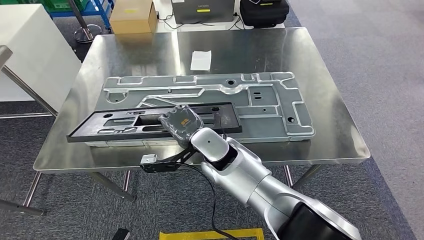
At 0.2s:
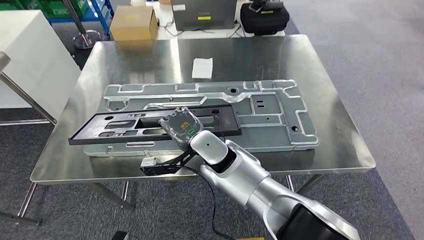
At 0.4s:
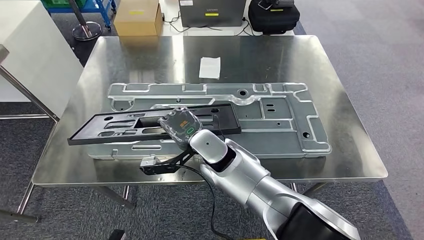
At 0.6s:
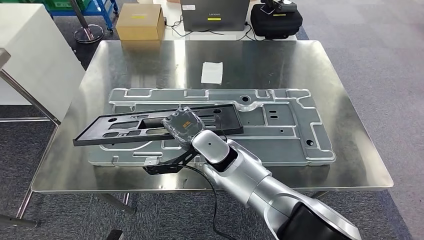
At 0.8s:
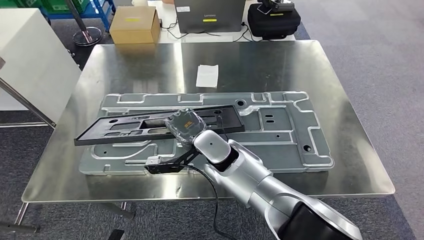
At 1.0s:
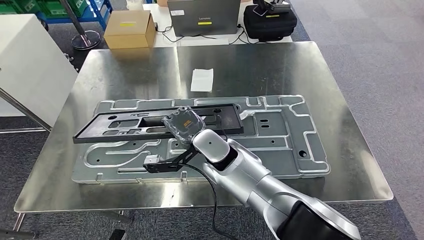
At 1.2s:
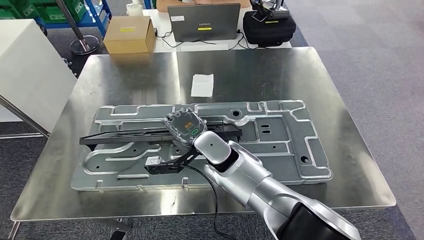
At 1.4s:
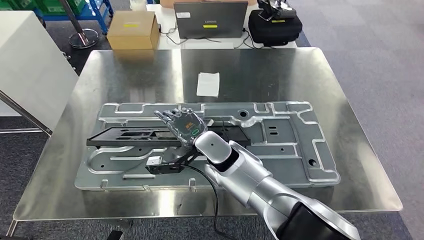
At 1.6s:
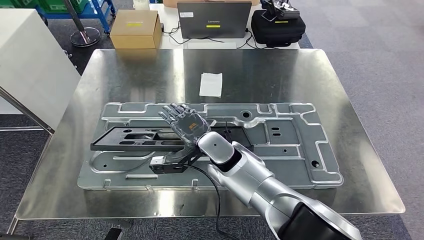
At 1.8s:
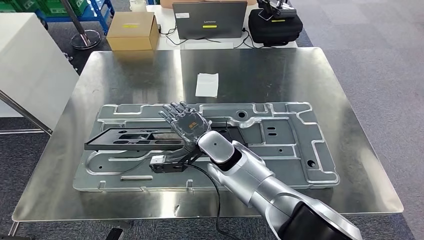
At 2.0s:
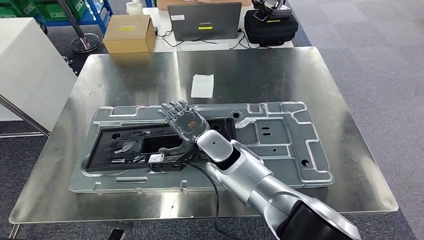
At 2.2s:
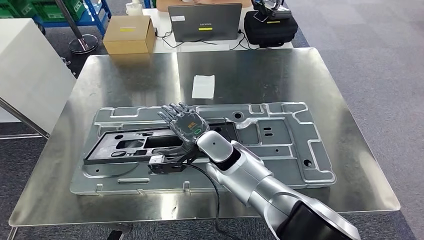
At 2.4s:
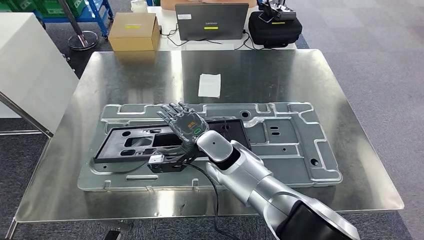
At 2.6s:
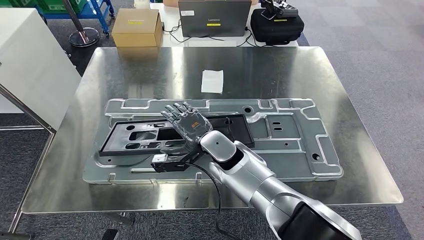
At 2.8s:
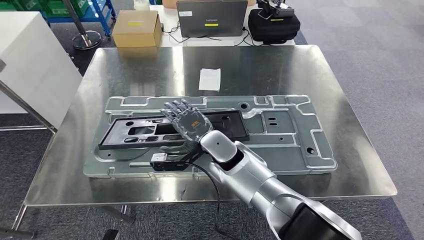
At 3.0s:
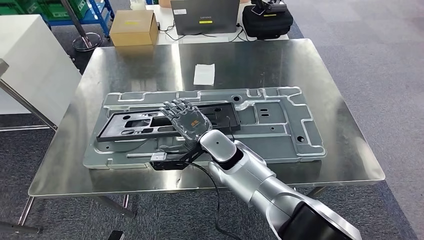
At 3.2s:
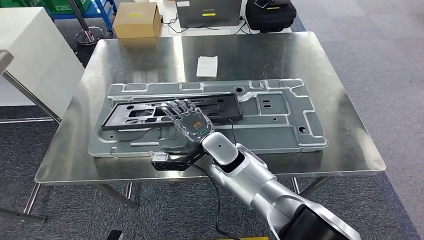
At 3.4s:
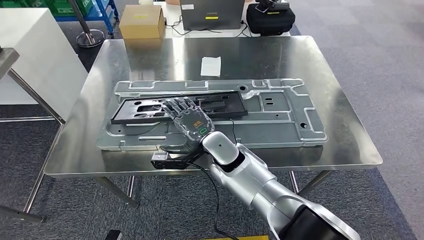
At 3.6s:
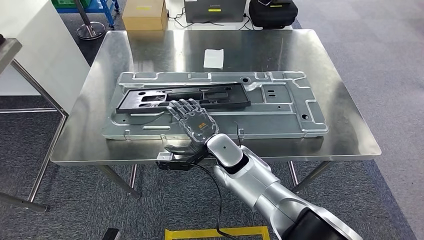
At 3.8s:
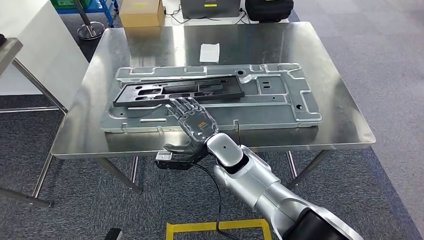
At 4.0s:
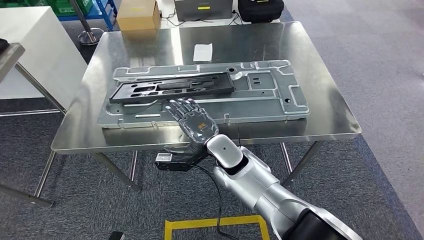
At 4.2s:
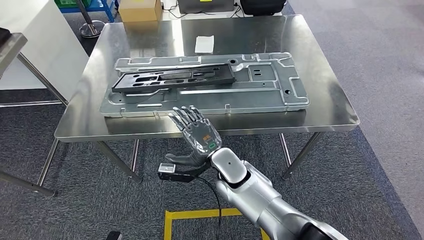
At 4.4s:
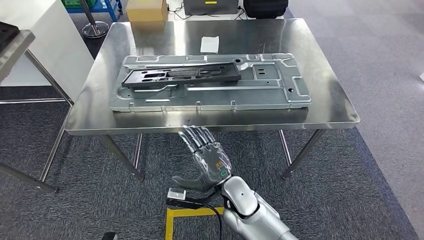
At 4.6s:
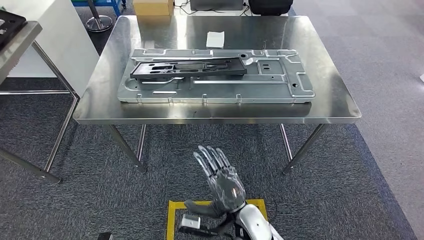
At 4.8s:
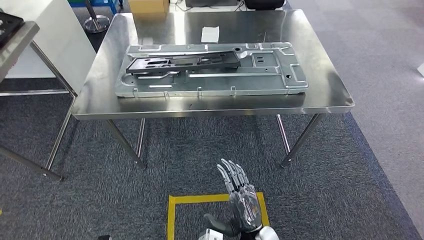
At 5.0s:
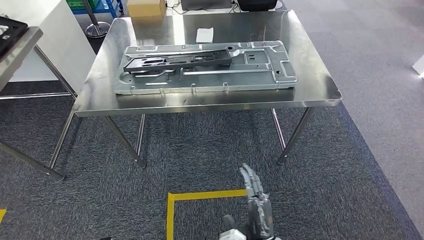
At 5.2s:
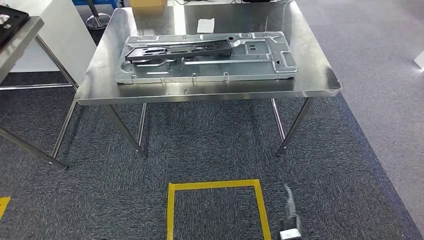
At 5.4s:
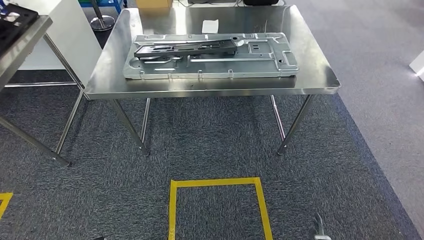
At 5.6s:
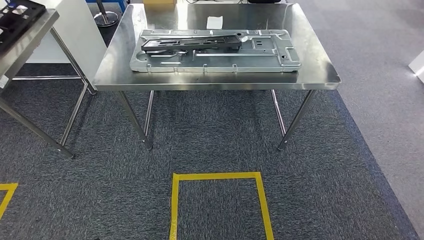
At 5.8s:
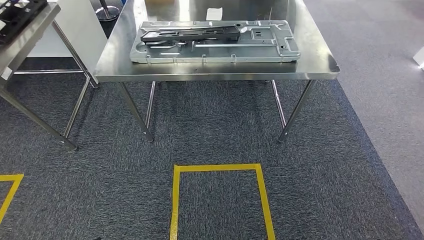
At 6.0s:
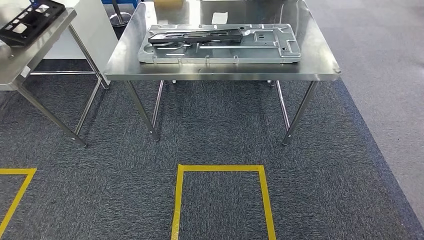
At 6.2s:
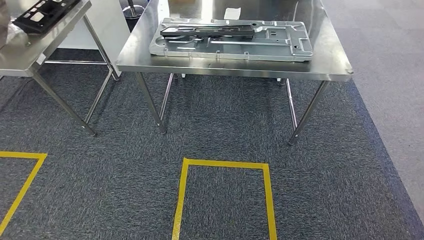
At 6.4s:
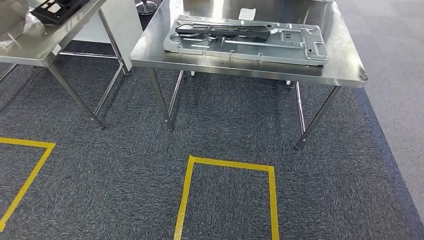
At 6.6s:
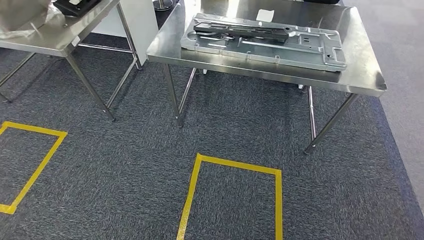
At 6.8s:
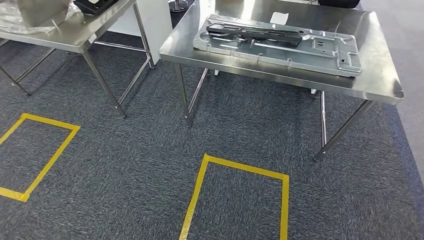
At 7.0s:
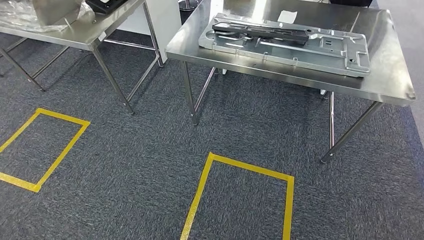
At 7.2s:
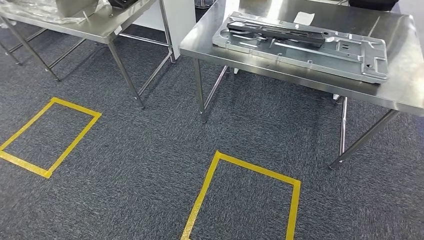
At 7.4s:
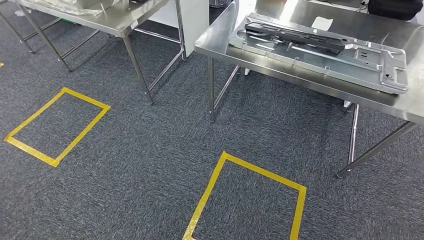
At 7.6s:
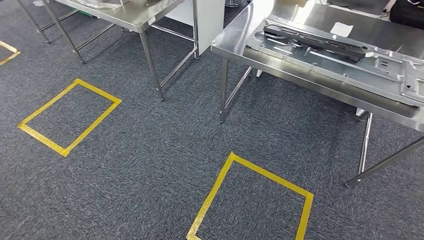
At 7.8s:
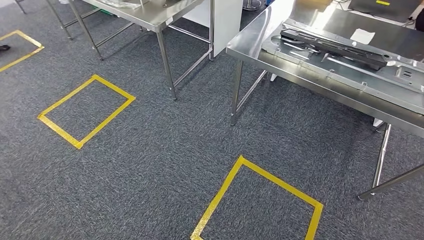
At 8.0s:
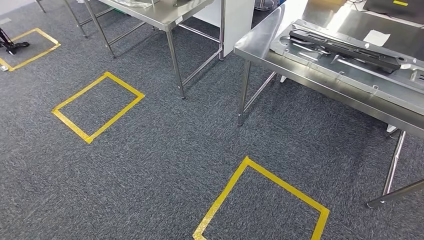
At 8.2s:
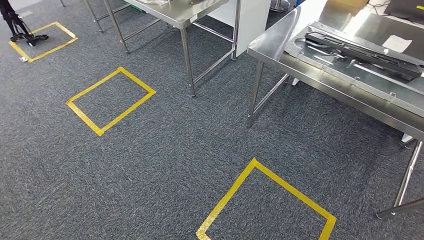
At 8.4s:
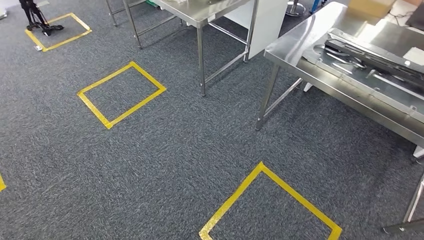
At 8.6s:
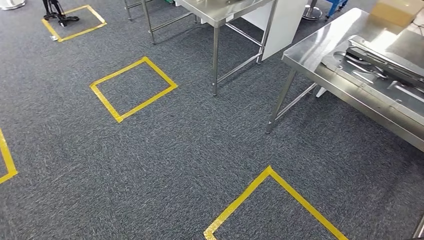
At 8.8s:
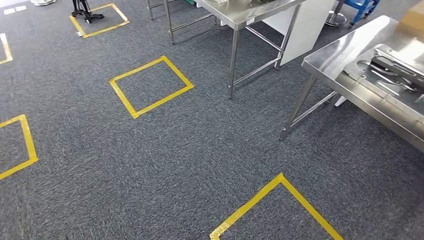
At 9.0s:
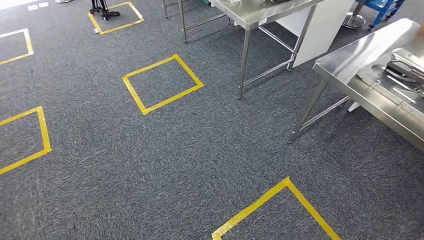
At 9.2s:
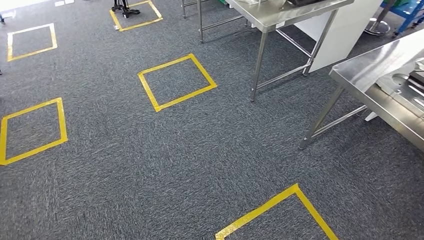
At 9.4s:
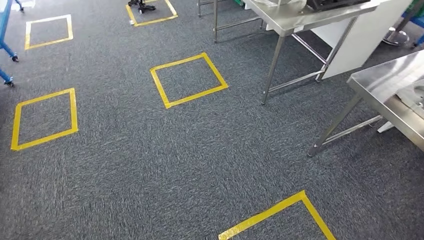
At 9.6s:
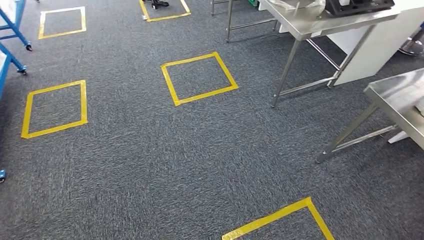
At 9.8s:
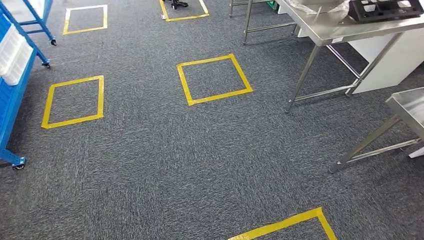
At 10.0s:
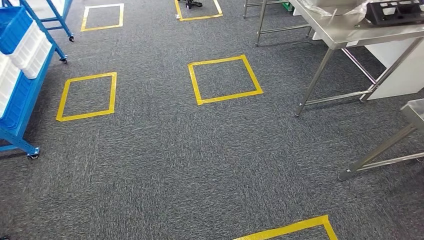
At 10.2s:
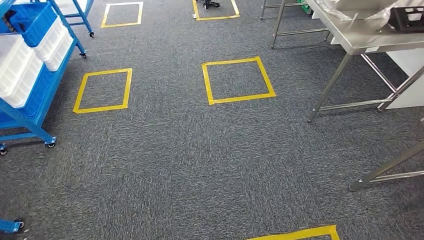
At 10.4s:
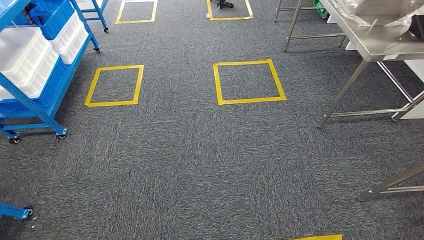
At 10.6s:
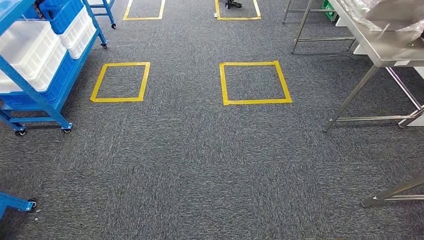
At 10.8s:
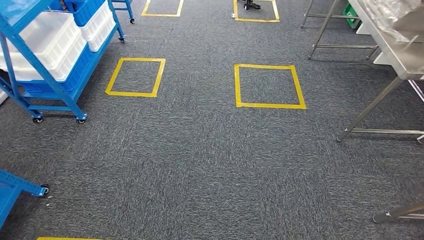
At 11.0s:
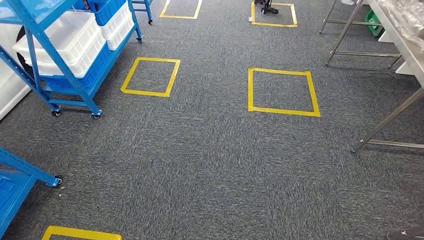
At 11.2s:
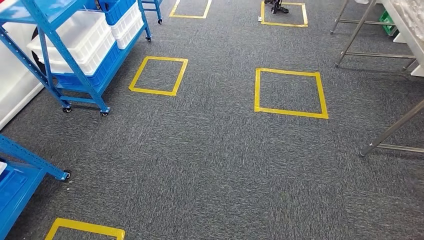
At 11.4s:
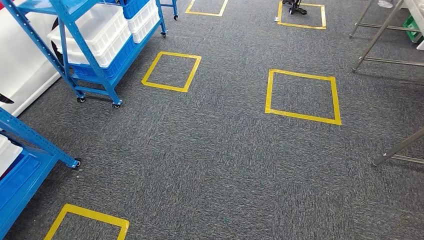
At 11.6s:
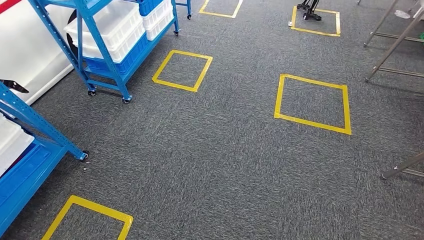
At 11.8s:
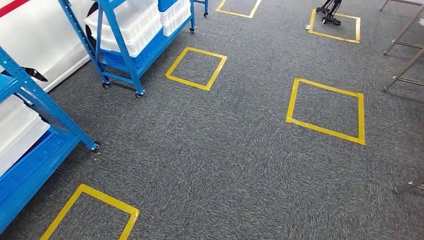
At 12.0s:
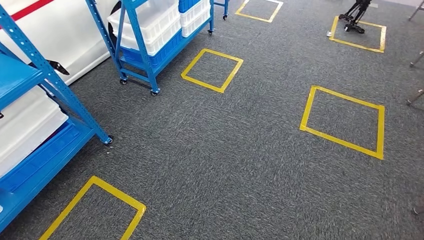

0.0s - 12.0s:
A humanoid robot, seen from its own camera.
Step, 0.0s - 6.0s: Insert the large material into the corresponding slot on the workbench.

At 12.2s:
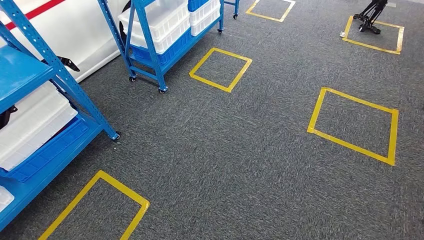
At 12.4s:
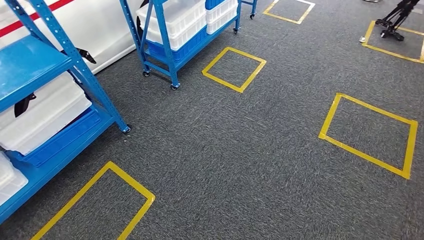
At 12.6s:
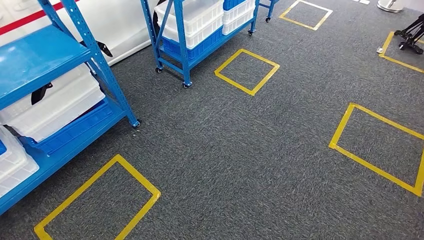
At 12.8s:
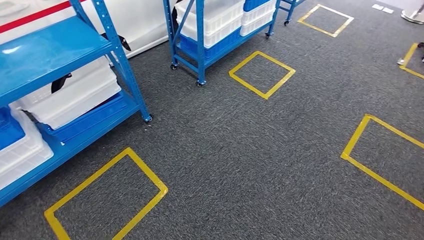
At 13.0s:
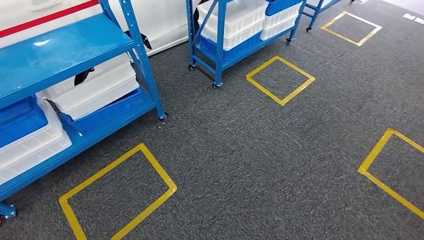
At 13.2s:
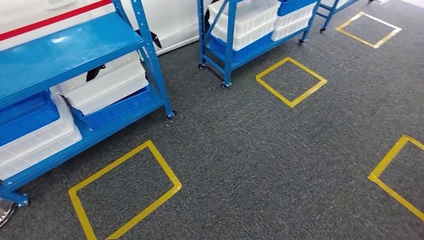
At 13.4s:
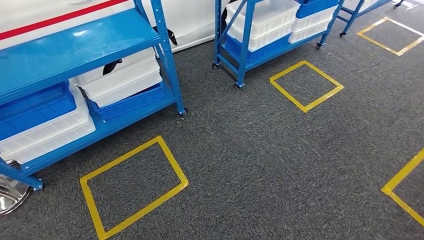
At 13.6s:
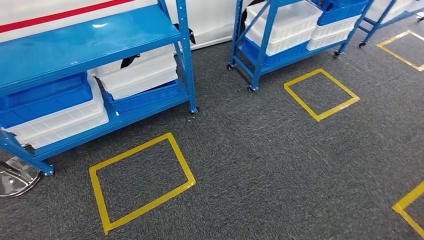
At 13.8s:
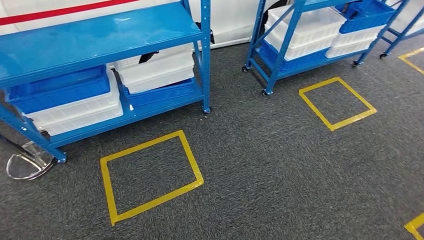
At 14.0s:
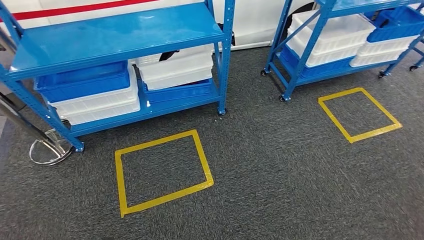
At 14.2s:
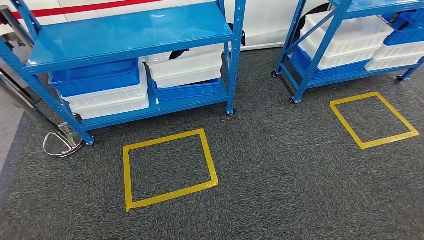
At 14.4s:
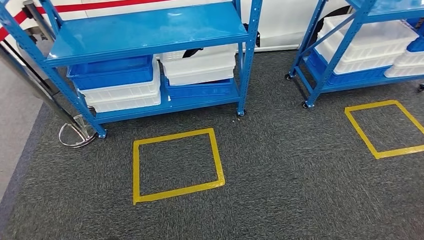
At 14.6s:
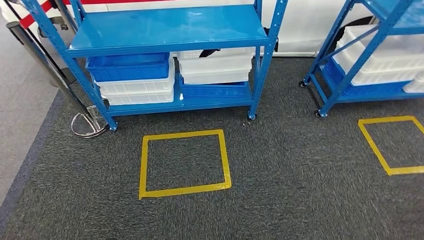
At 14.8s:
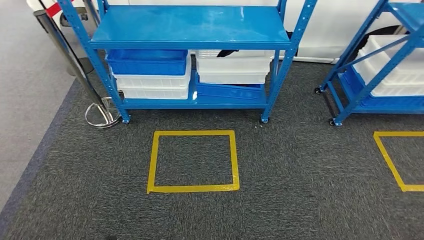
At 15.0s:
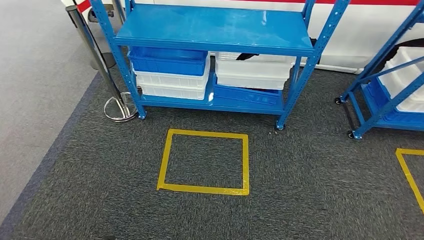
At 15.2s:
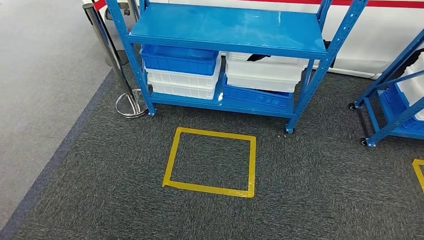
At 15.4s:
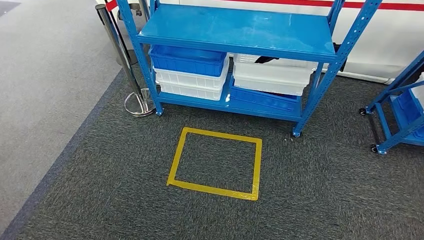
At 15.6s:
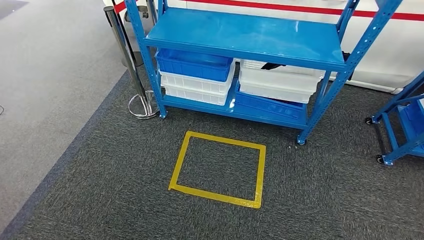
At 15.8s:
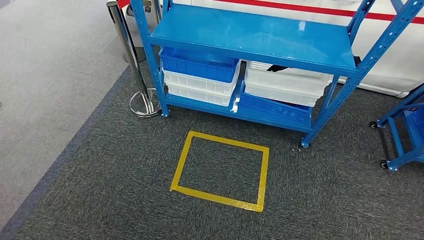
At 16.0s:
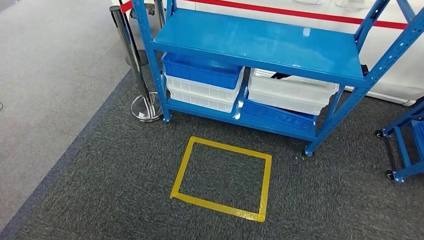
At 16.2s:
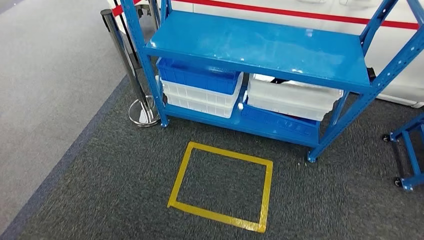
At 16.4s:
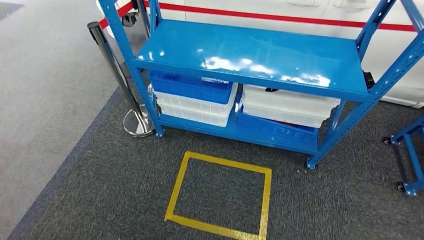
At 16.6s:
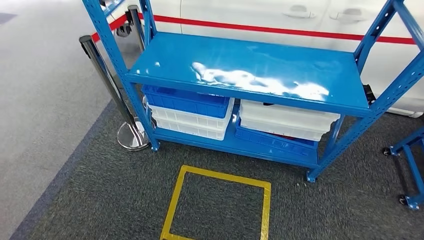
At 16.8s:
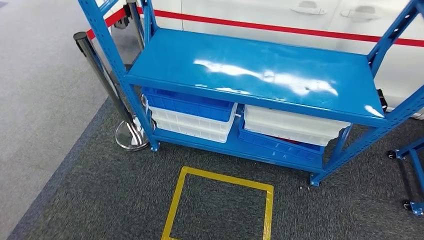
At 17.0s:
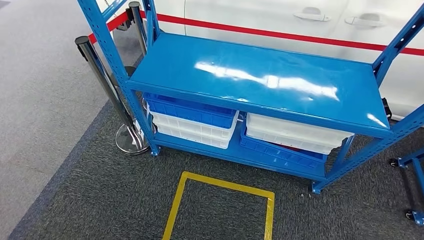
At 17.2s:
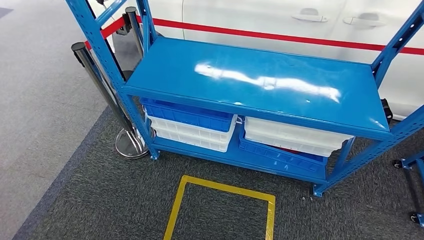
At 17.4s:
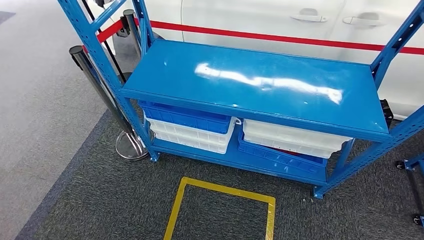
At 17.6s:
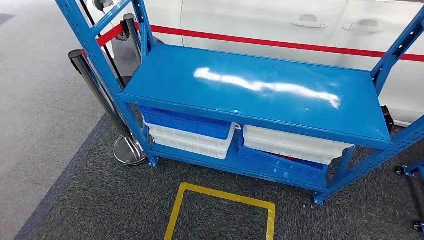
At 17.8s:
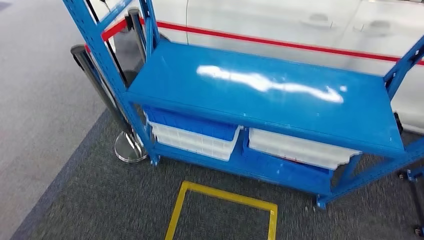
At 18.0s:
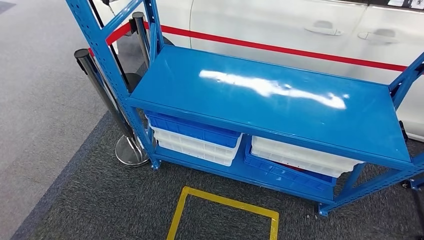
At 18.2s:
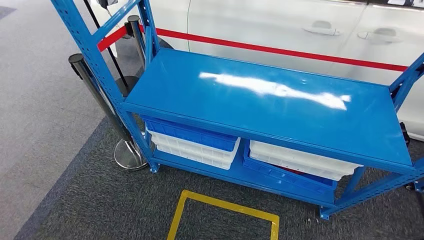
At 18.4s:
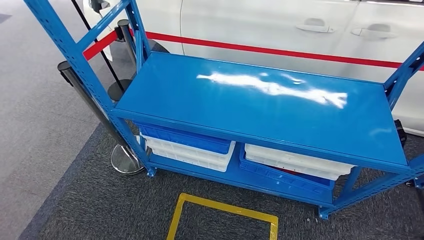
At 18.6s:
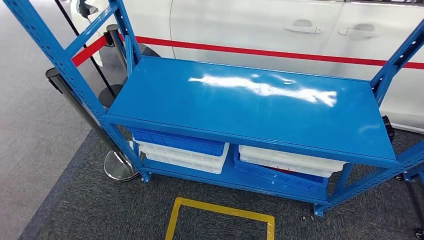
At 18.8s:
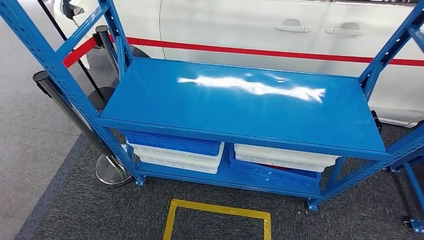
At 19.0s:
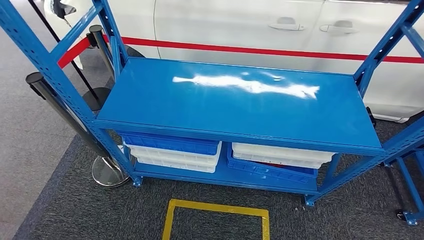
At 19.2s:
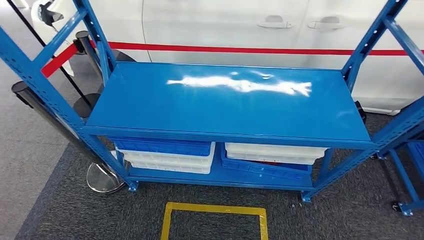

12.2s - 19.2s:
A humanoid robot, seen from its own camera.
Step, 12.2s - 19.2s: Return to the initial position at the shelf.
